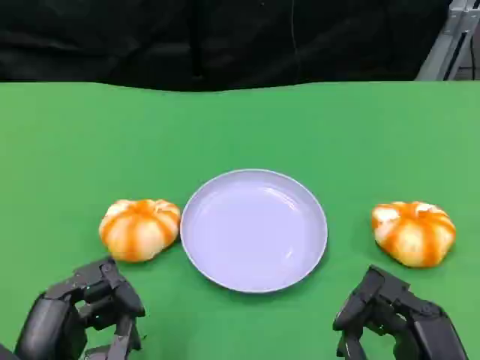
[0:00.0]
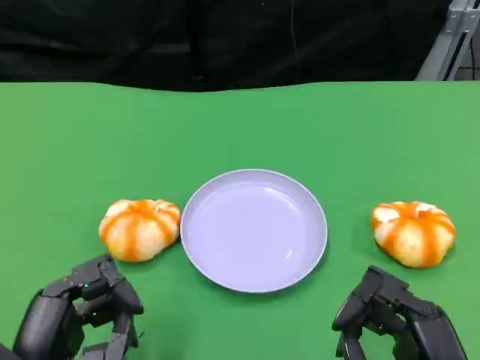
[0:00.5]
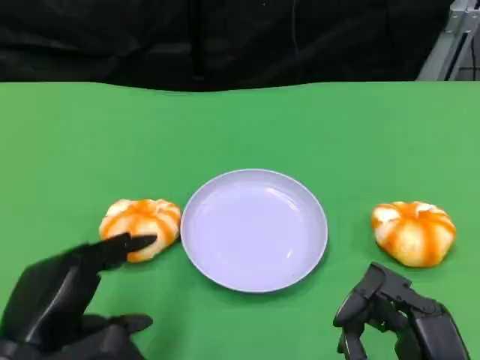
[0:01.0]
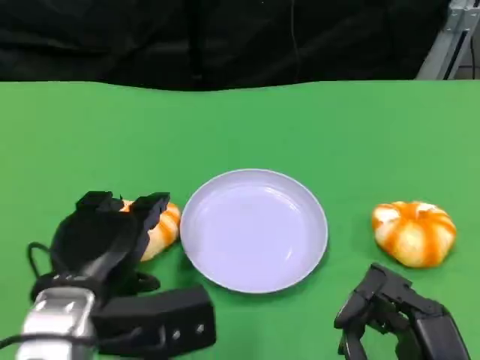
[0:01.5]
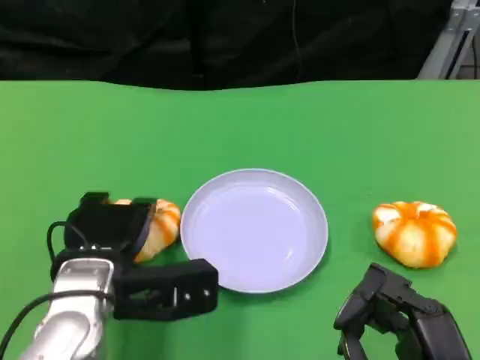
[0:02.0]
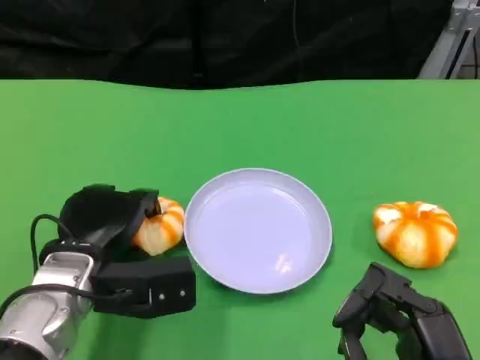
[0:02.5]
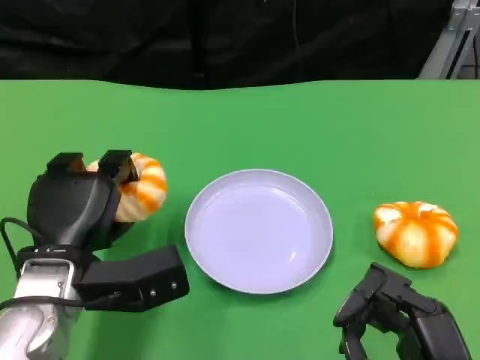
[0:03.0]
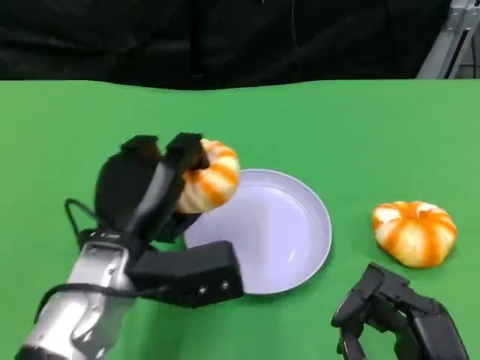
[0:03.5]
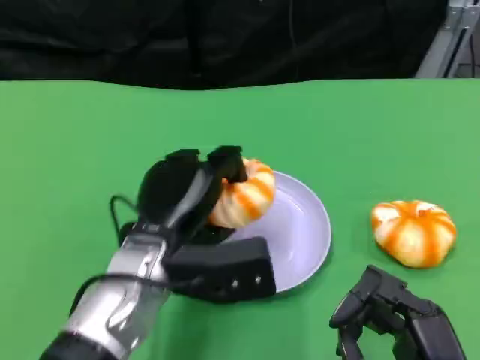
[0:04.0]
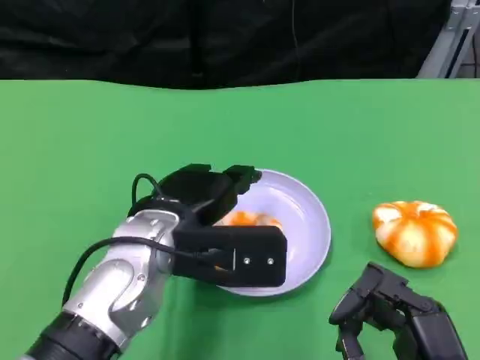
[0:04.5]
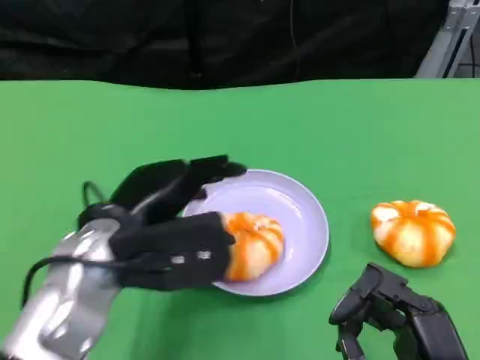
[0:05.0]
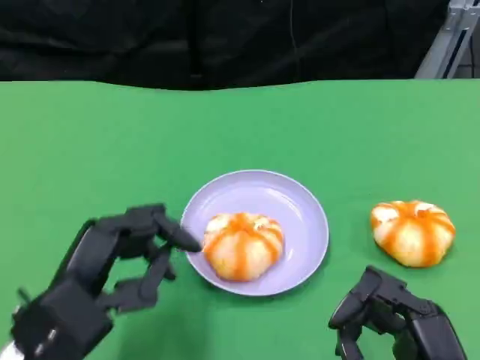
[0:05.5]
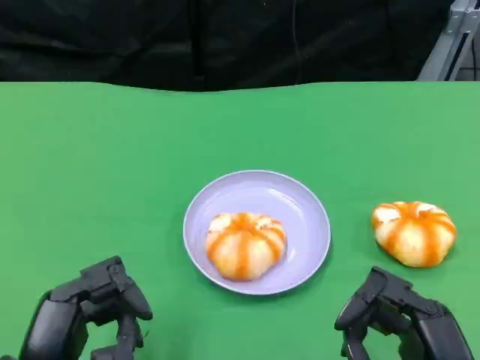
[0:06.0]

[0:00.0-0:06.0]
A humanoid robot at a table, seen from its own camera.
Task of the whole recording: Grasp the bread from the table and place it into the plate.
0:00.0 to 0:02.0: The left hand travels forward and to the right by approximately 15 cm.
0:02.0 to 0:04.0: The left hand goes roughly 5 cm to the right.
0:04.0 to 0:06.0: The left hand heads backward and to the left, covering approximately 20 cm.

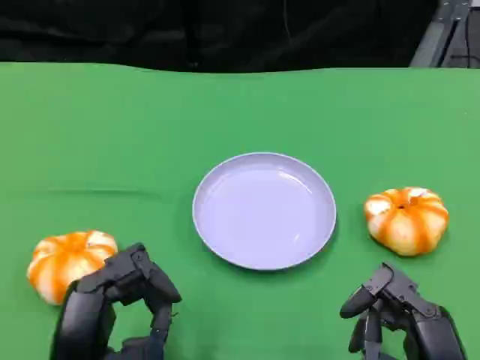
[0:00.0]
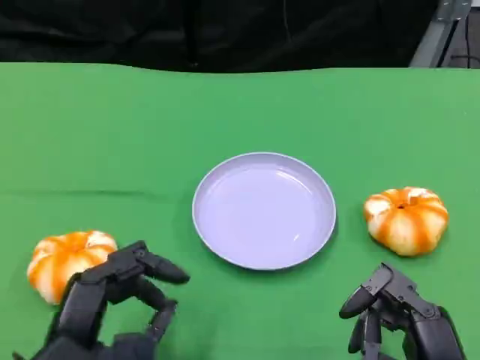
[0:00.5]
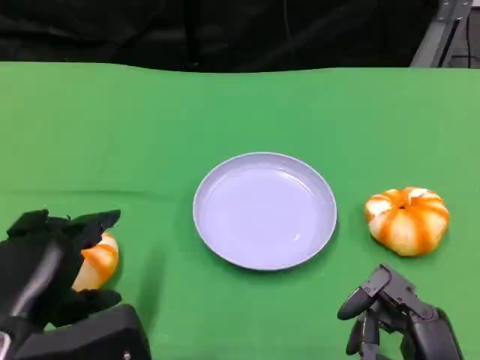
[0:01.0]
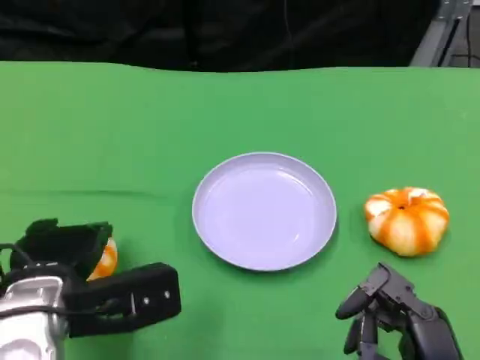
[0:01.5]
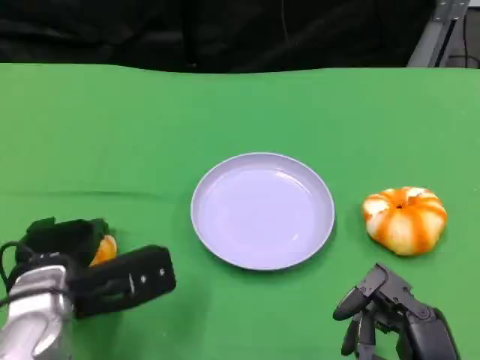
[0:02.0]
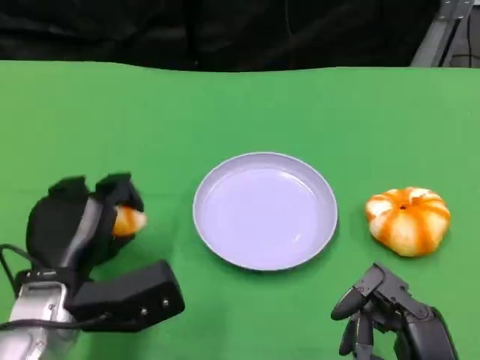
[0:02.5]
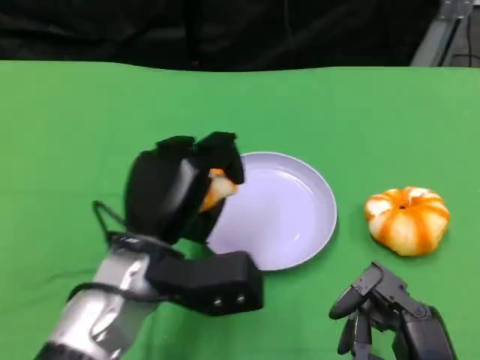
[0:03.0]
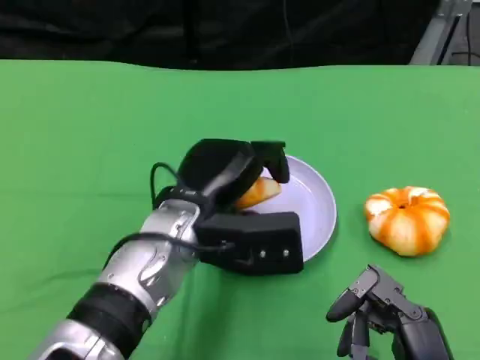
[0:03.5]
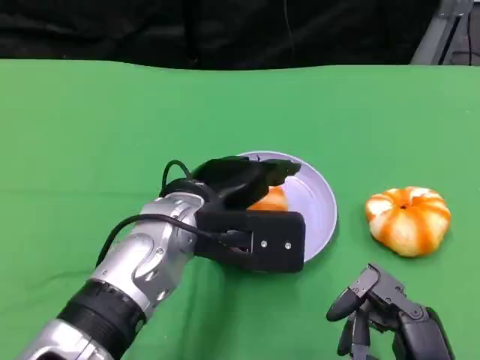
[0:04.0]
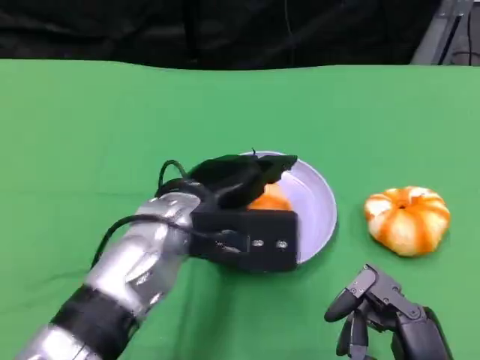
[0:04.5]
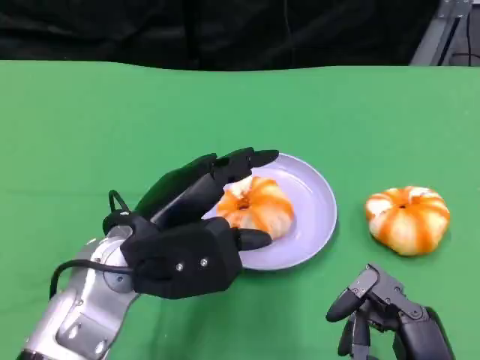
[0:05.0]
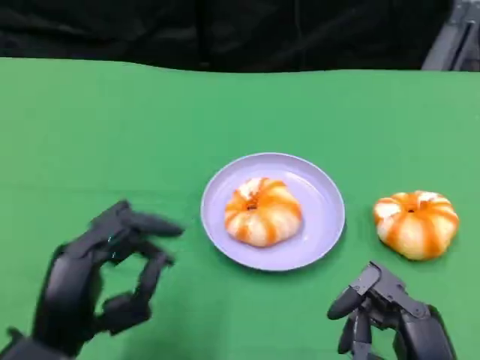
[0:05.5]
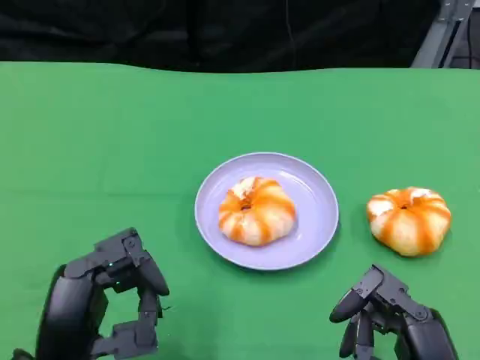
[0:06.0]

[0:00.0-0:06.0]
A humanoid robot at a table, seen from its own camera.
Task of the whole recording: Grasp the bread from the table and place it into the plate.
0:00.0 to 0:02.0: The left hand goes about 10 cm forward.
0:02.0 to 0:04.0: The left hand travels to the right and upward by approximately 15 cm.
0:04.0 to 0:06.0: The left hand shifts roughly 20 cm backward and to the left.

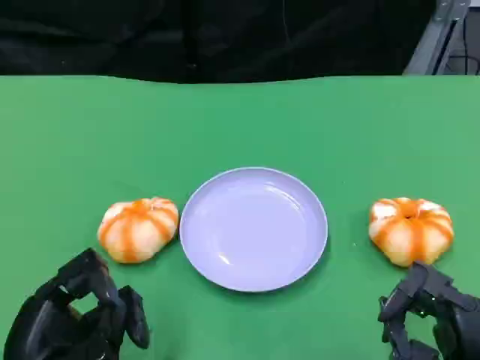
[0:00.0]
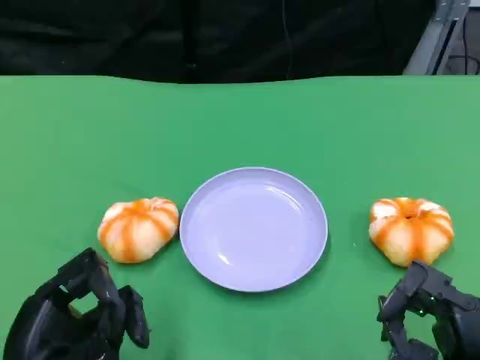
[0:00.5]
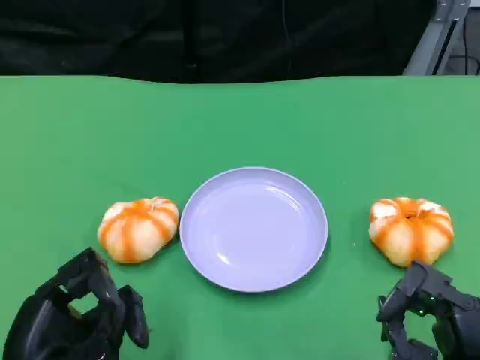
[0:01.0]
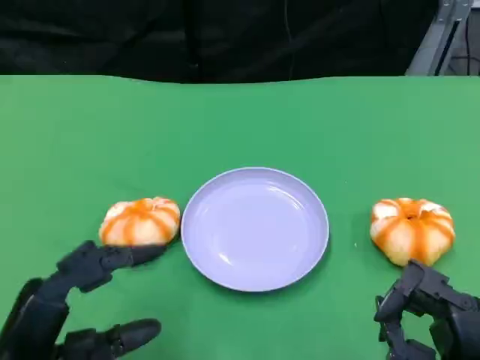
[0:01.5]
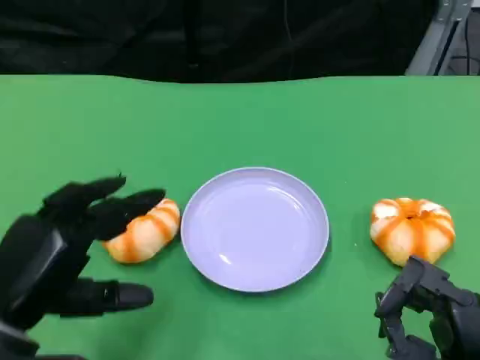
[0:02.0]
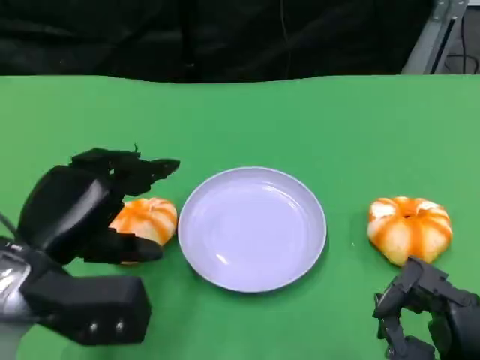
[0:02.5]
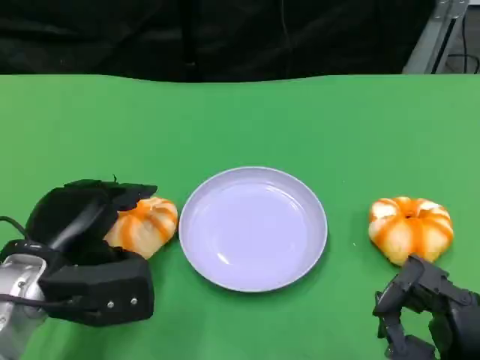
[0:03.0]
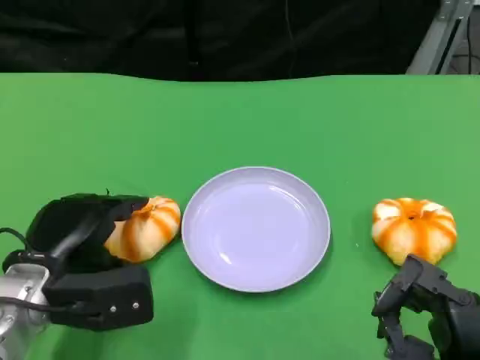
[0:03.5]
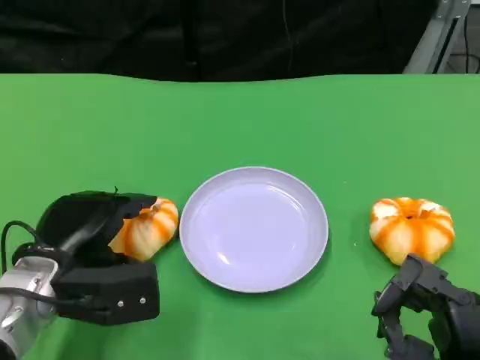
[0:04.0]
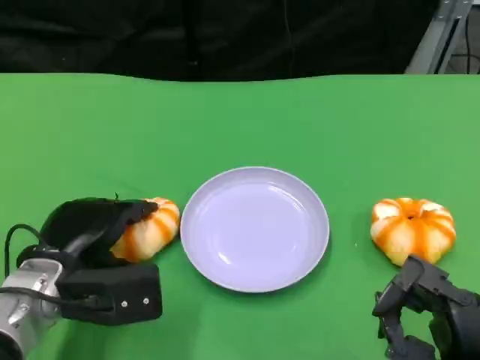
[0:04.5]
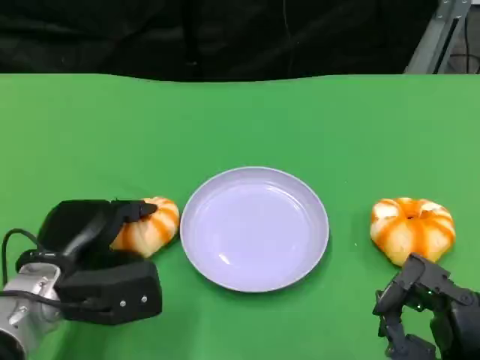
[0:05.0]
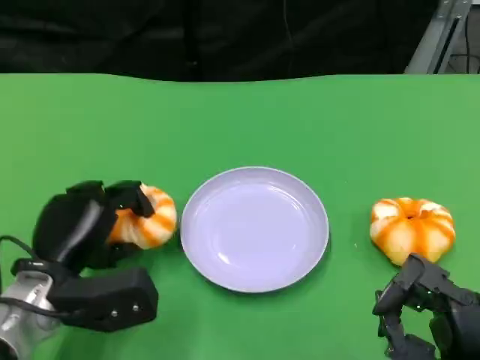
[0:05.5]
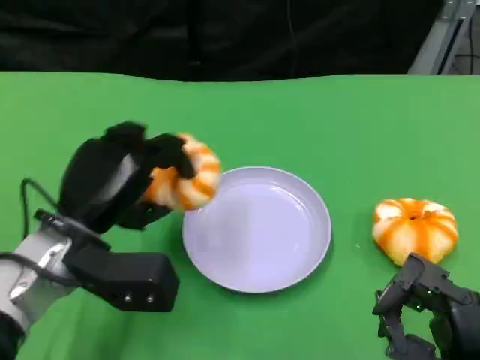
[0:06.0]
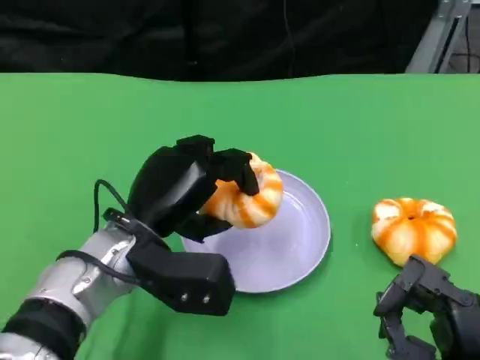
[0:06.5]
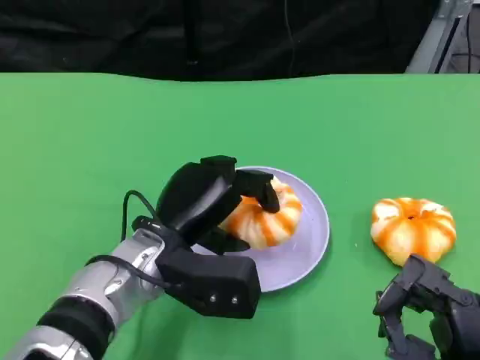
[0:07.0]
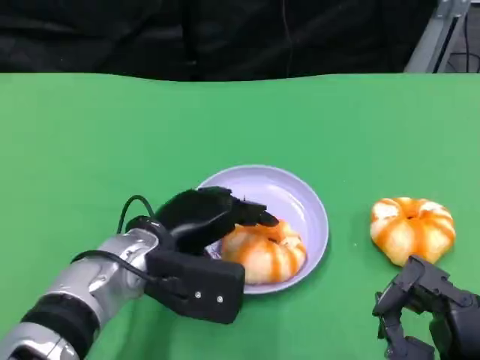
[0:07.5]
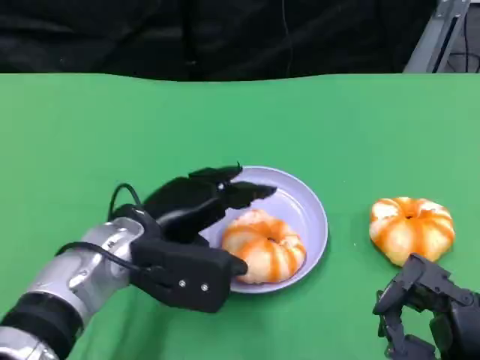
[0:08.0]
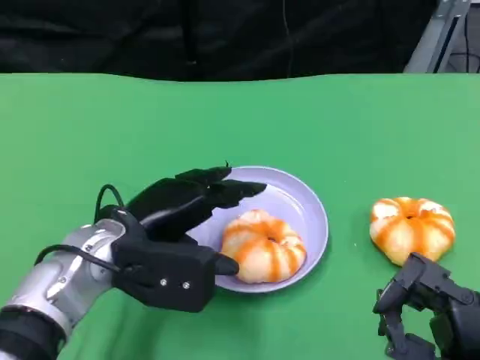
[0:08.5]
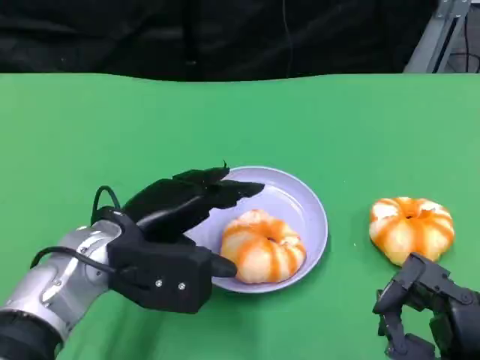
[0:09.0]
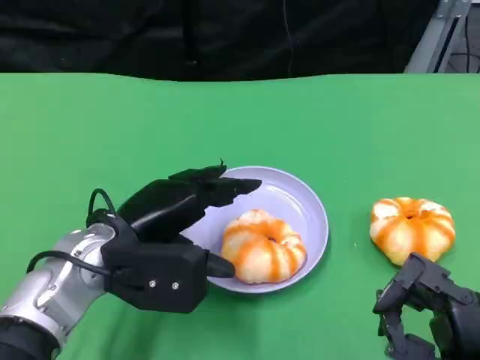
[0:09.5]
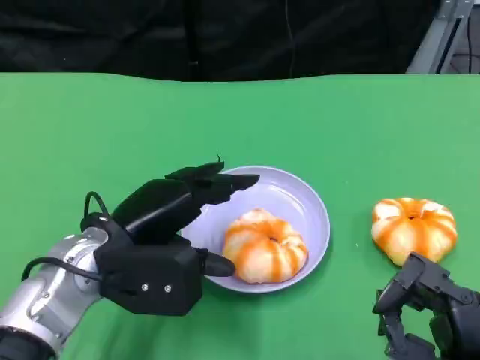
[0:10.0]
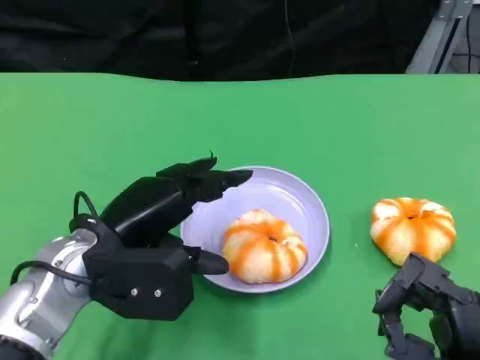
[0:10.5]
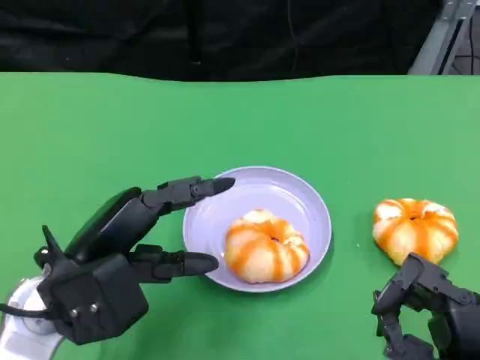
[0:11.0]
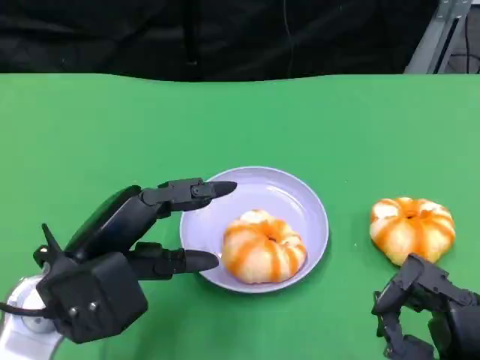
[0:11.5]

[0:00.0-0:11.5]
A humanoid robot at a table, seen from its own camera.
Task of the whole recording: Grasp the bread from the table and place it into the plate.
0:00.0 to 0:02.0: The left hand goes approximately 5 cm upward.
0:02.0 to 0:04.0: The left hand heads forward and downward, covering approximately 10 cm.
0:04.0 to 0:06.0: The left hand changes place by some 5 cm.
0:06.0 to 0:07.5: The left hand moves to the right, approximately 5 cm.
0:07.5 to 0:09.5: The hands make only small movements.
0:09.5 to 0:11.5: The left hand shifts by some 5 cm.

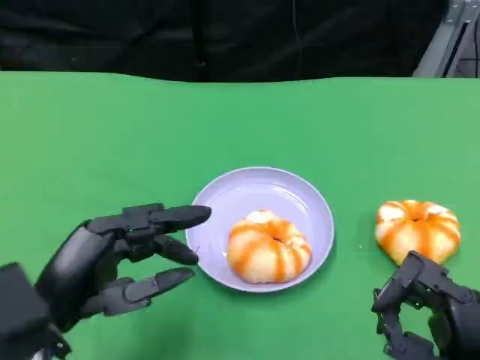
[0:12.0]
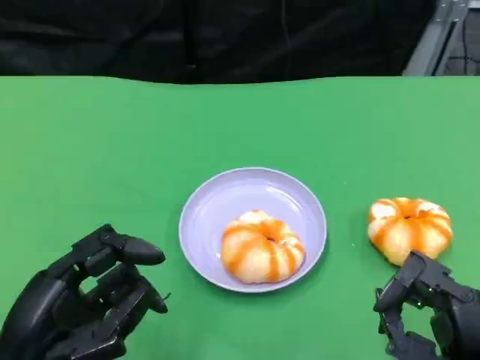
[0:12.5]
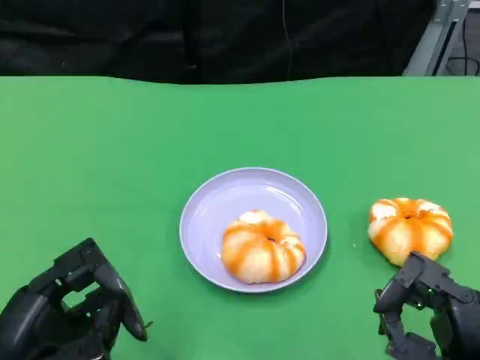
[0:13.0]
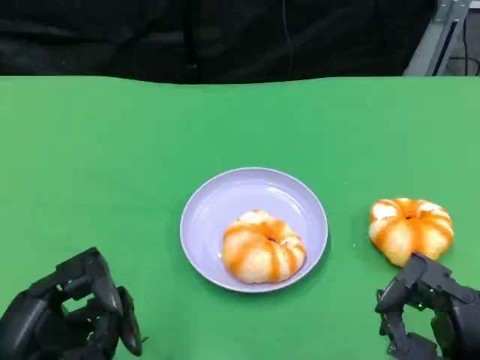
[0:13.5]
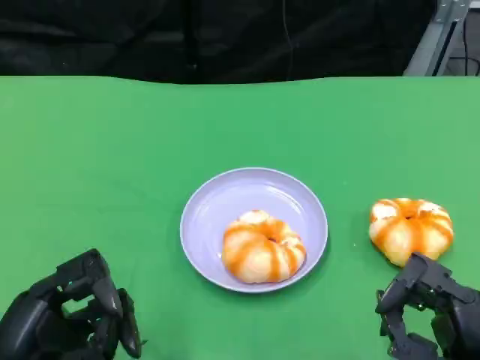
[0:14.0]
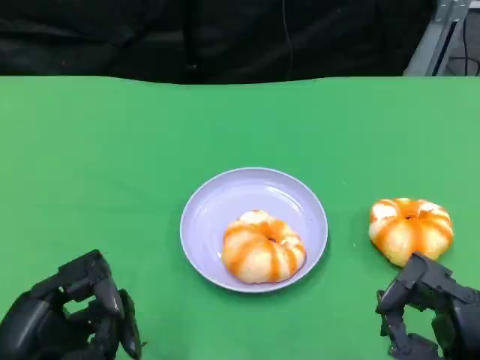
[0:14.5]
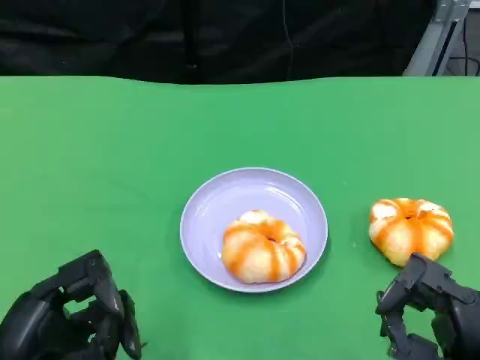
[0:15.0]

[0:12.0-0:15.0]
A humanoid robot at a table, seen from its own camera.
Task of the whole recording: Grasp the bread from the table and place it into the plate.
0:12.0 to 0:13.5: The left hand heads backward, covering about 5 cm.
0:13.5 to 0:15.0: The two hands keep their place.
